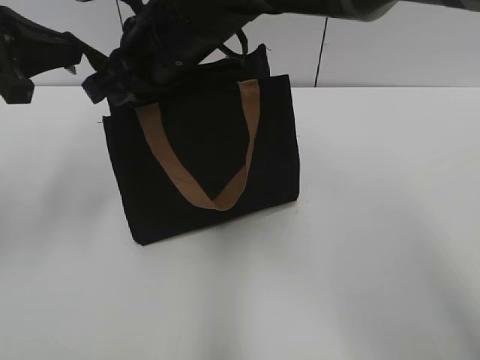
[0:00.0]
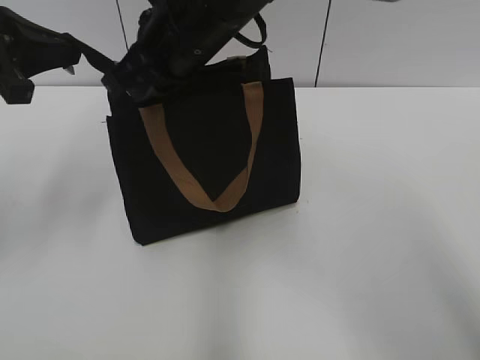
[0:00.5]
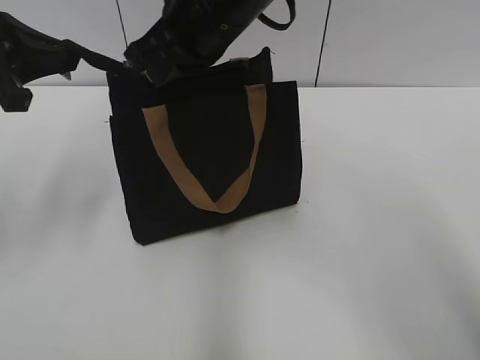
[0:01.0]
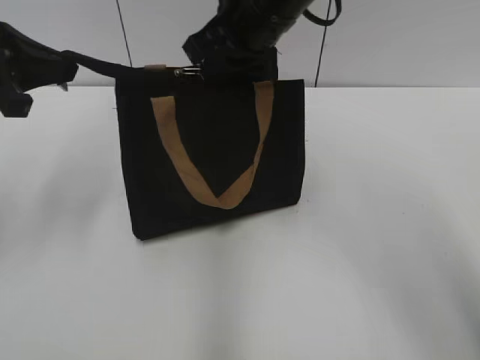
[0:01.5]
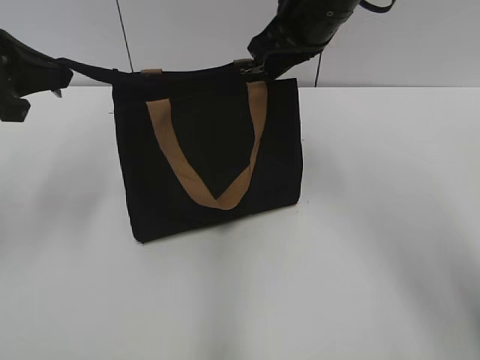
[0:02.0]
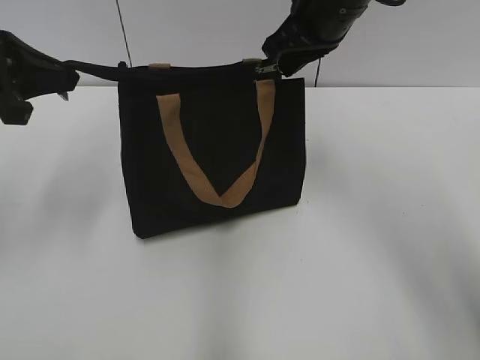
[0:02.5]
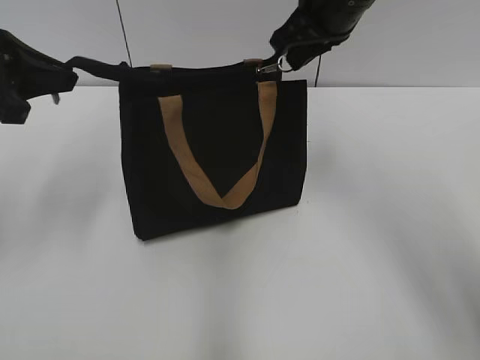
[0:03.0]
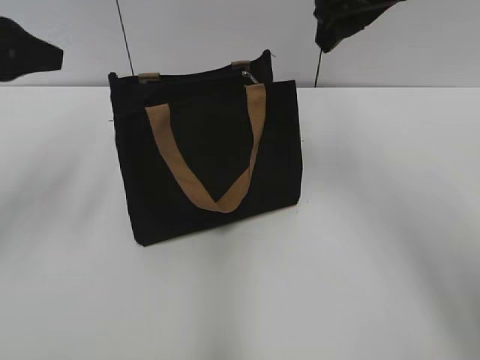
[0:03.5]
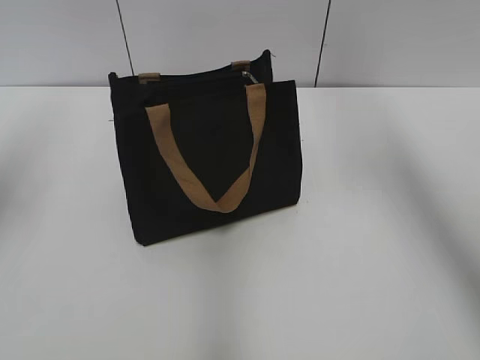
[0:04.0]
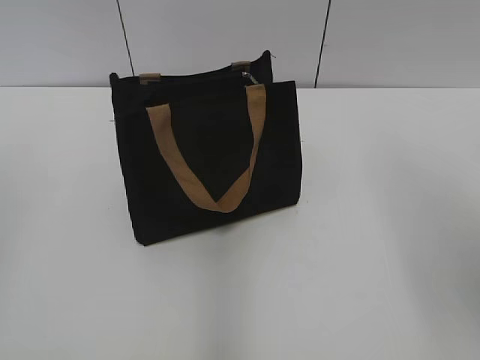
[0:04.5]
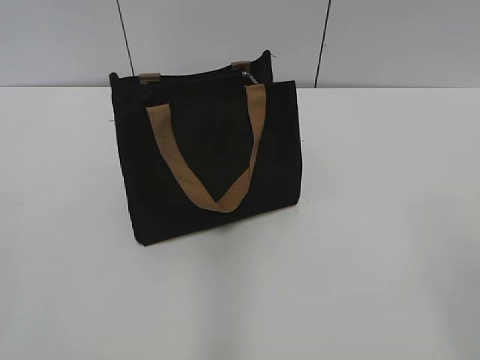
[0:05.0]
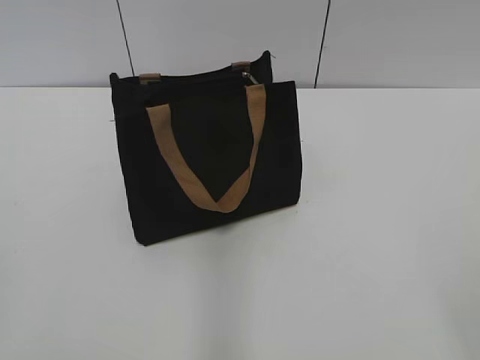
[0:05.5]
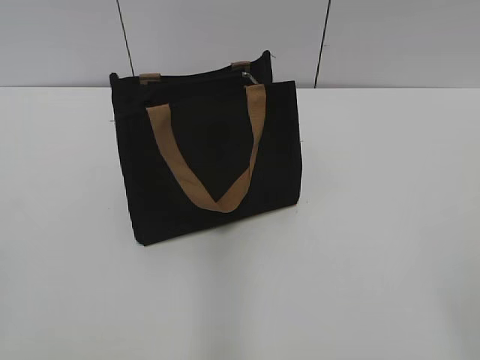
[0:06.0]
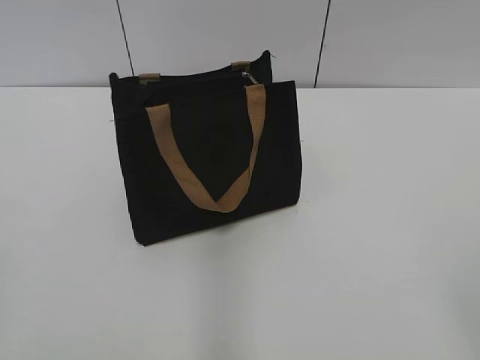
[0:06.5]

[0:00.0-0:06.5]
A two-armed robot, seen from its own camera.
Step, 0:00.0 to 0:03.0: Zip up the bag with your right hand.
0:00.0 to 0:02.0: The right gripper is displaced to the right and forward by roughly 15 cm.
0:02.0 to 0:04.5: The right gripper is displaced backward and to the right by some 30 cm, and opens, while the left gripper moves backward and upward, roughly 20 cm, and opens its fingers.
0:04.5 to 0:06.5: The right gripper heads backward and downward, covering some 20 cm.
